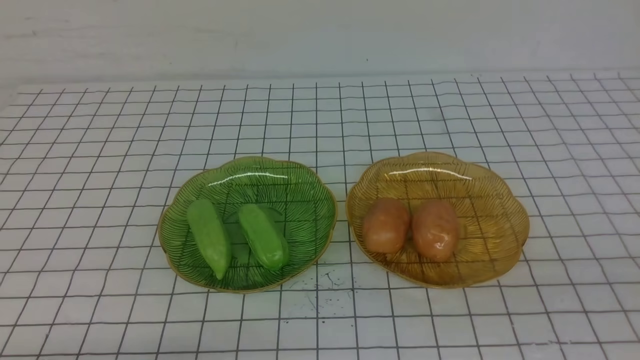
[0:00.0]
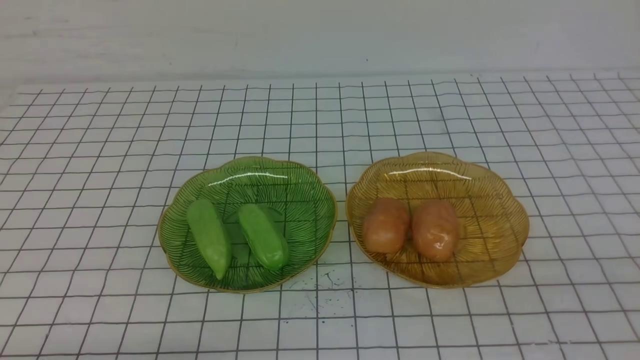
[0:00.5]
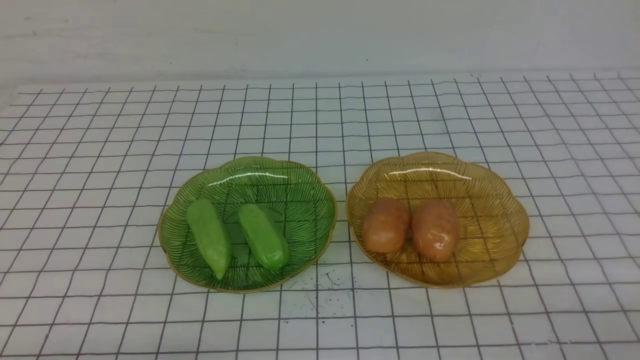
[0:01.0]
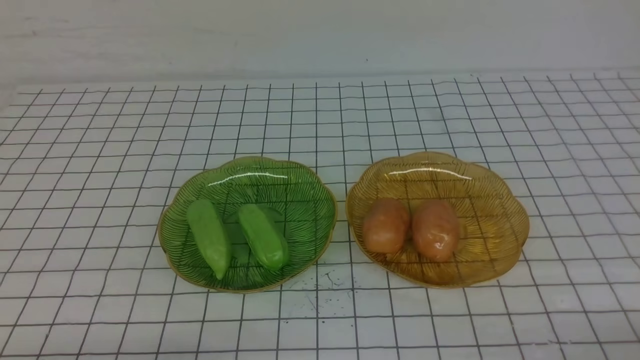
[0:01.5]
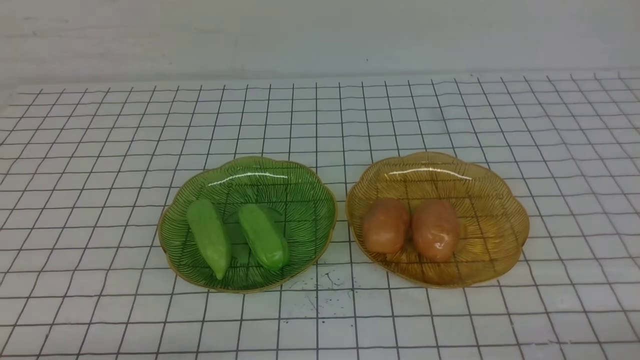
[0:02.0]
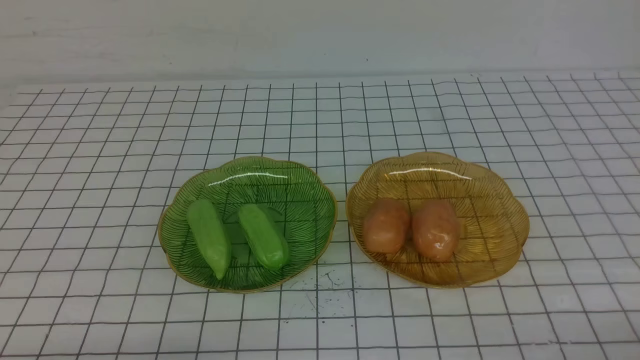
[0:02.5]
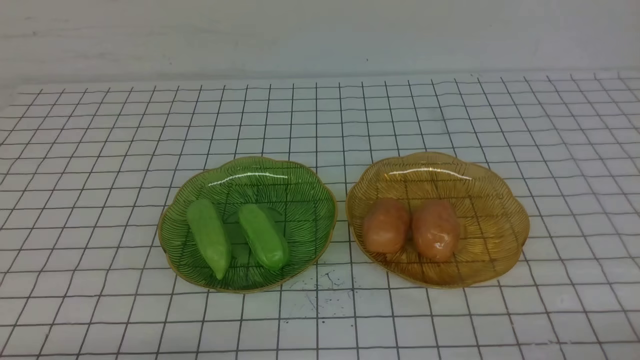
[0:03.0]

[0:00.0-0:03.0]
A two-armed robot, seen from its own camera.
0:01.5 to 0:03.0: The two grippers keep their place.

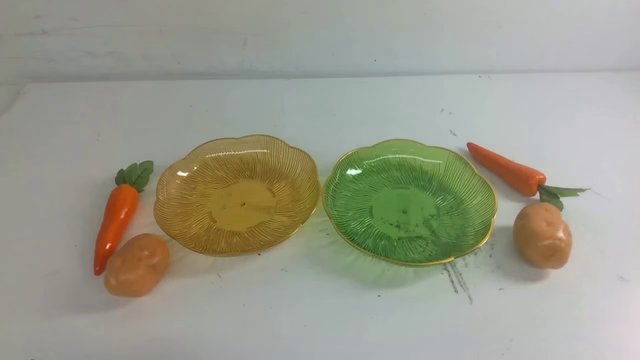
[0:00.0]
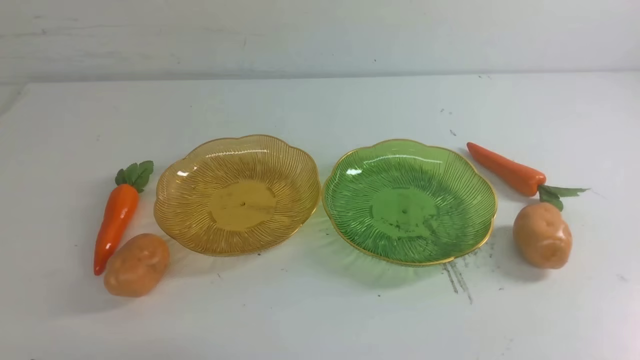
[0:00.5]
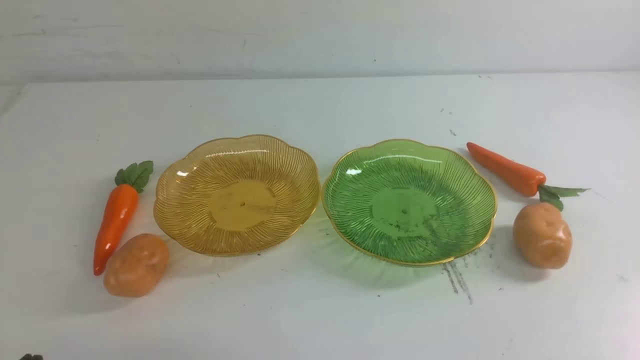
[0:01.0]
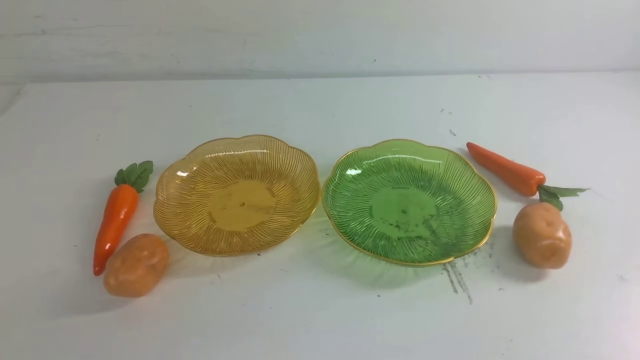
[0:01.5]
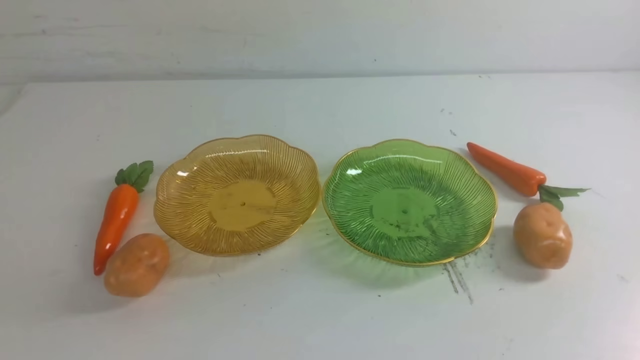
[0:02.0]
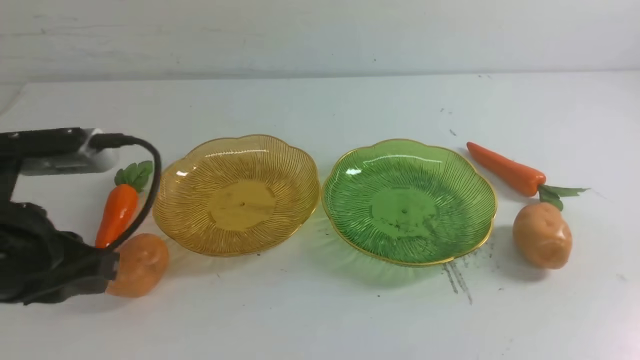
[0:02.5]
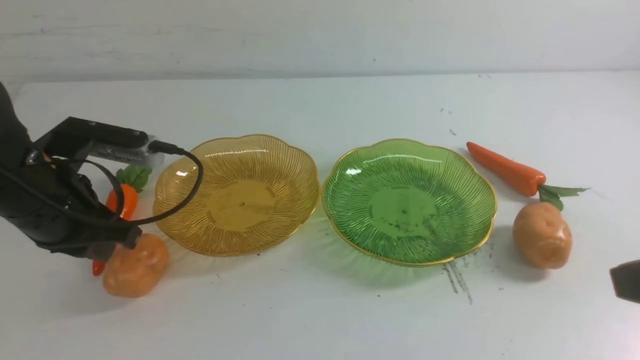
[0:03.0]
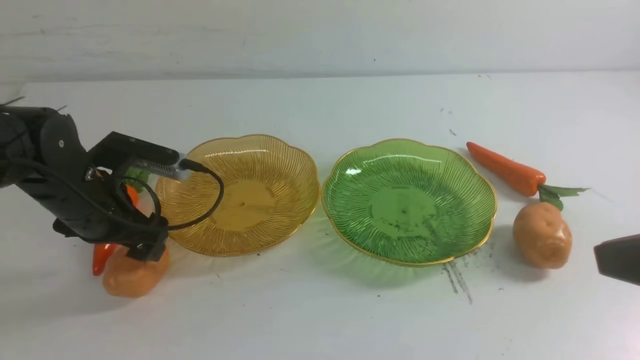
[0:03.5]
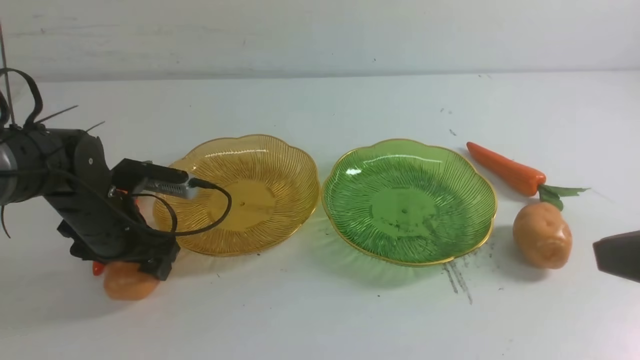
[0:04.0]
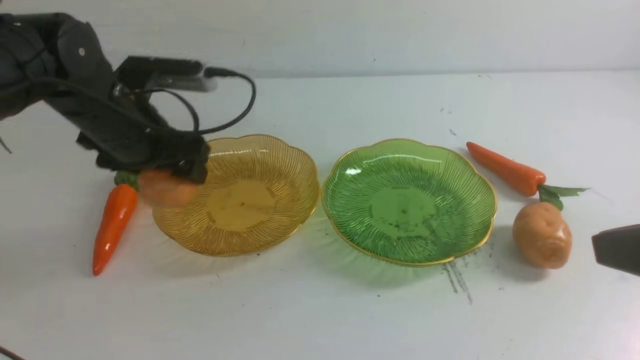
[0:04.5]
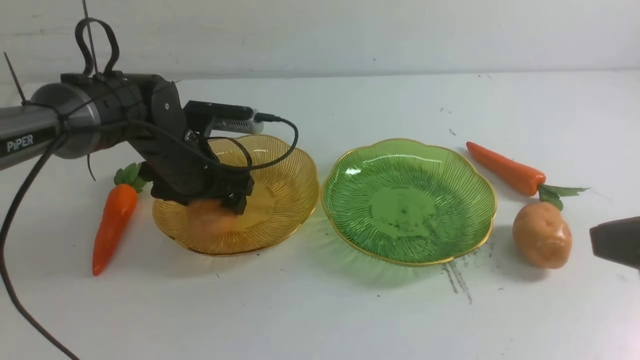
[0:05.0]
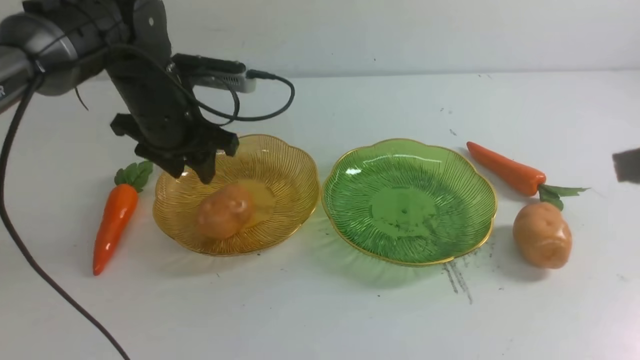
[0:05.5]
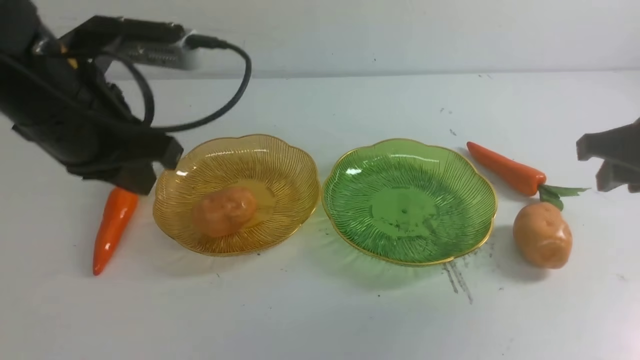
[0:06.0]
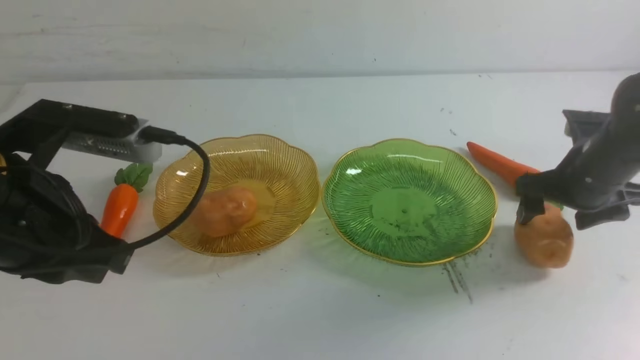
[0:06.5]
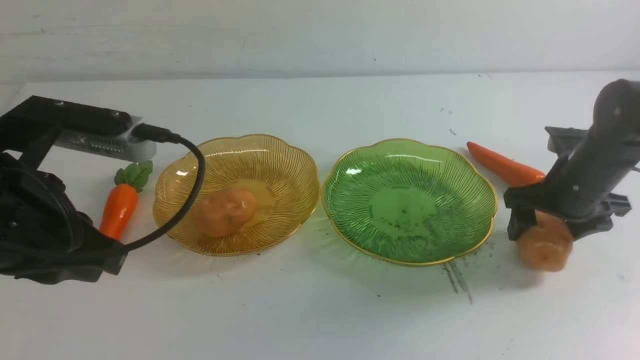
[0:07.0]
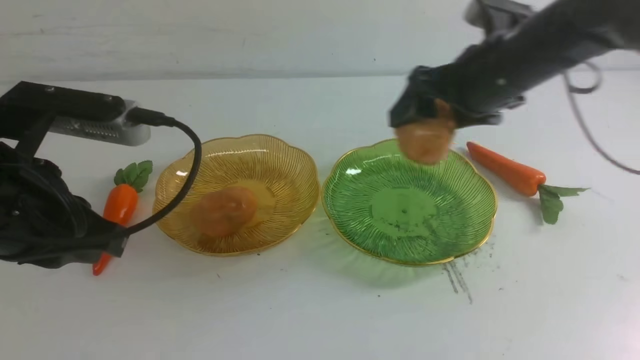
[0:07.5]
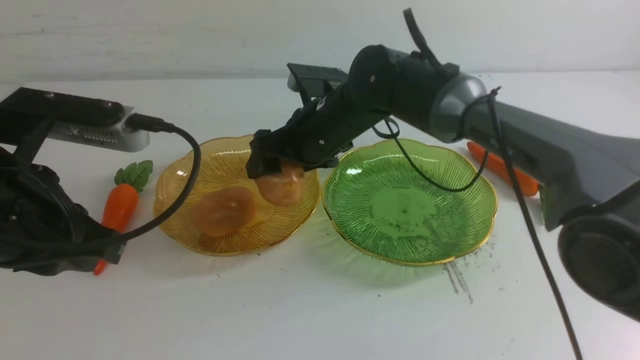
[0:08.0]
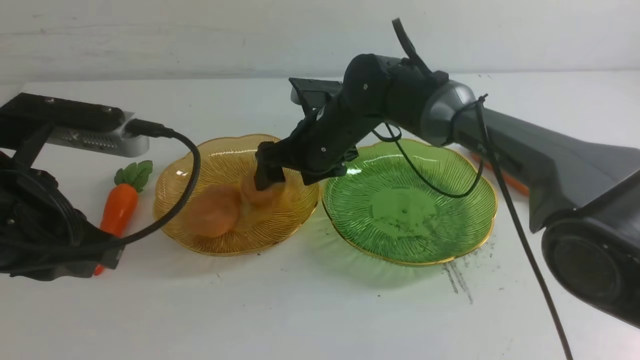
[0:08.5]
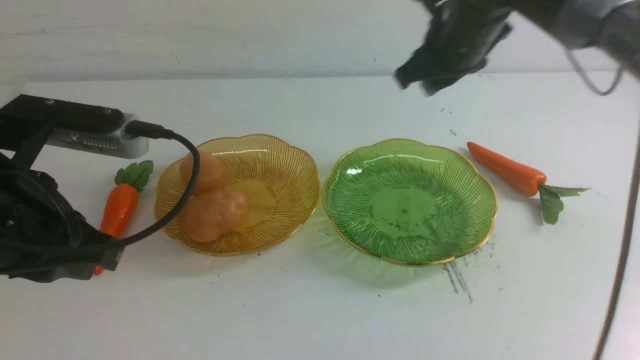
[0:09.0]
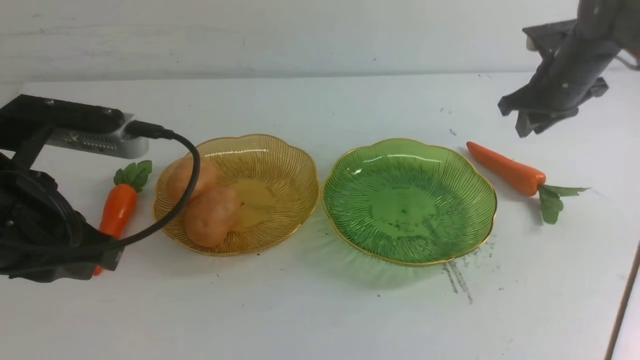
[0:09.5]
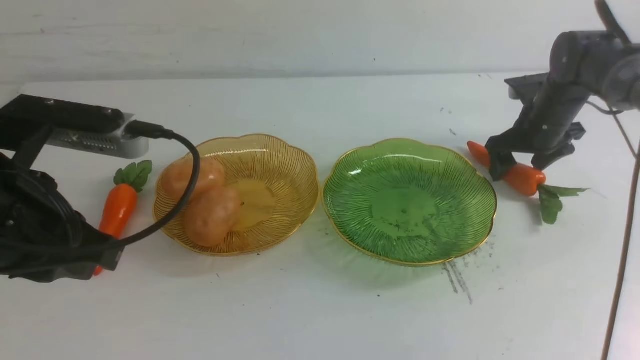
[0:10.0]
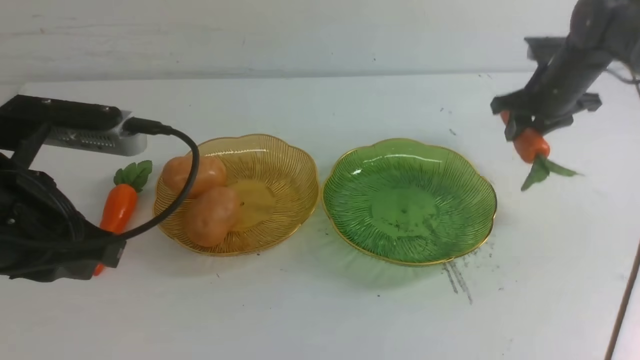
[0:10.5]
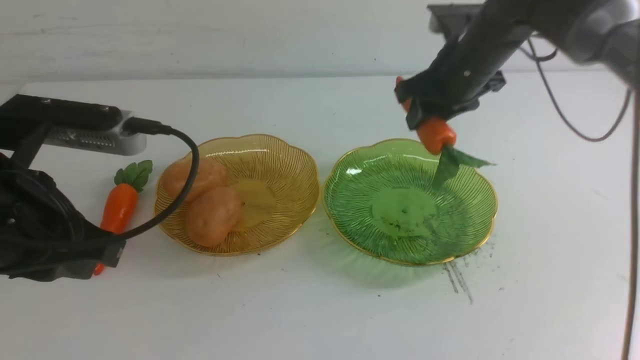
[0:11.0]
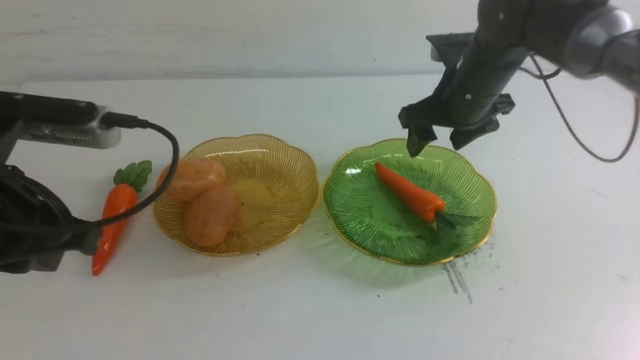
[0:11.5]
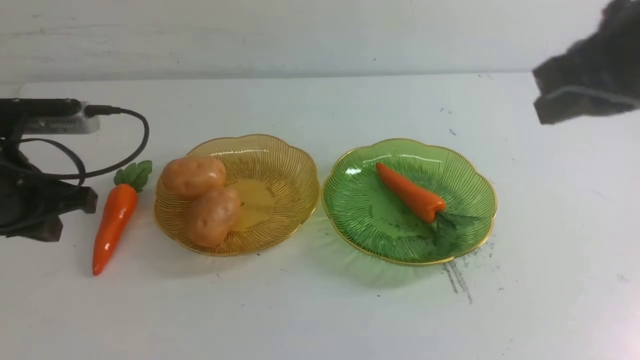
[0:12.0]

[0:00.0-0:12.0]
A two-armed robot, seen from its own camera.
Step, 0:00.0 to 0:05.0: Grab a potato with your left arm and put it on the left plate.
Step, 0:05.5 to 0:08.5: Grab a potato with your right arm and put it on the left plate.
Step, 0:09.5 to 0:11.5: use the right arm to grab a carrot and put it into the right plate.
0:02.0 to 0:04.0: The right gripper goes approximately 15 cm upward, forward and to the left. Meanwhile the left gripper is displaced forward and downward by about 30 cm, and opens up.
0:04.0 to 0:06.0: The left gripper swings up and down, approximately 15 cm each way, with 2 reversals, and closes; the right gripper shifts approximately 20 cm forward, and opens its fingers.
0:06.0 to 0:08.0: The right gripper is displaced to the left and forward by about 30 cm, and opens up, while the left gripper goes some 5 cm backward.
0:08.0 to 0:10.0: The right gripper moves to the right, about 30 cm, and closes, then opens again.
0:10.0 to 0:12.0: The right gripper goes some 35 cm backward and upward, and closes up. Meanwhile the left gripper shifts some 15 cm forward, to the left and downward.

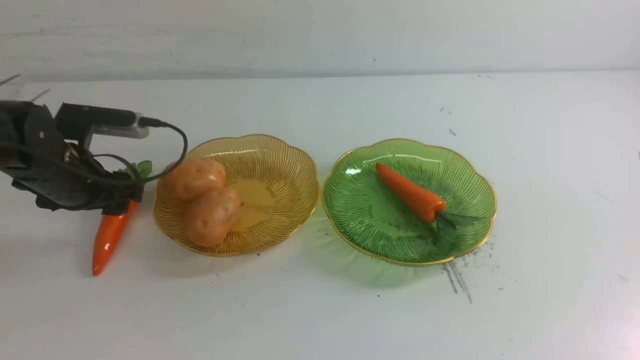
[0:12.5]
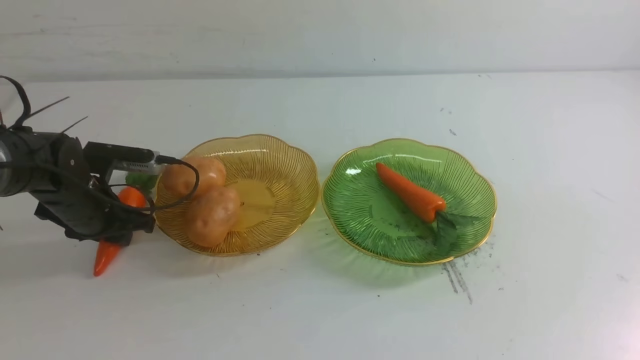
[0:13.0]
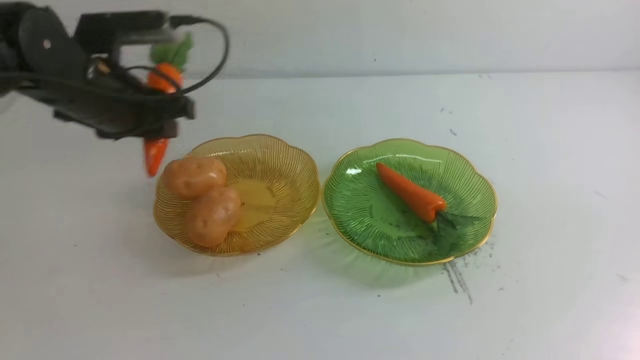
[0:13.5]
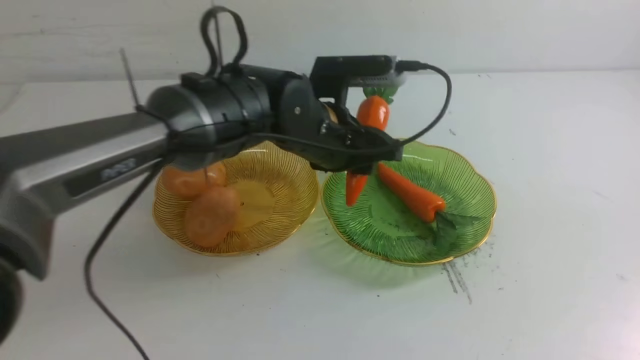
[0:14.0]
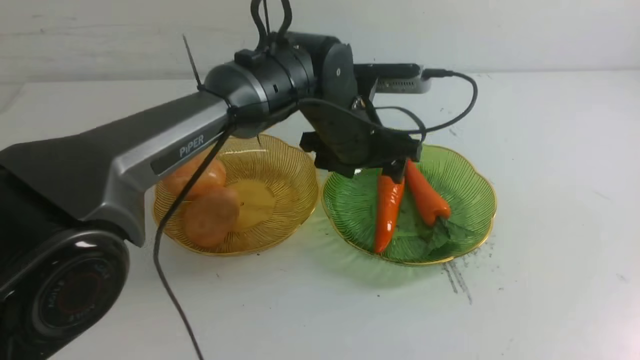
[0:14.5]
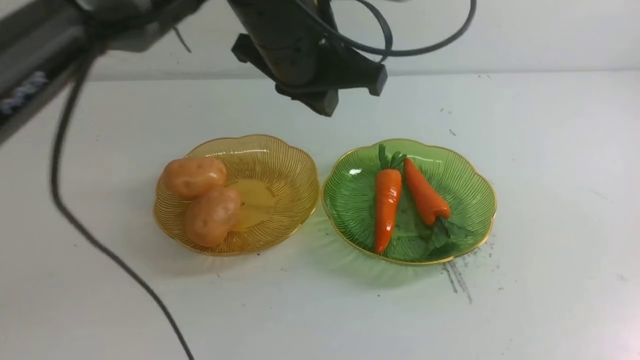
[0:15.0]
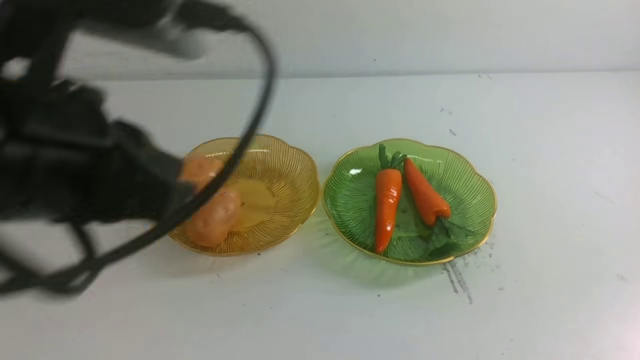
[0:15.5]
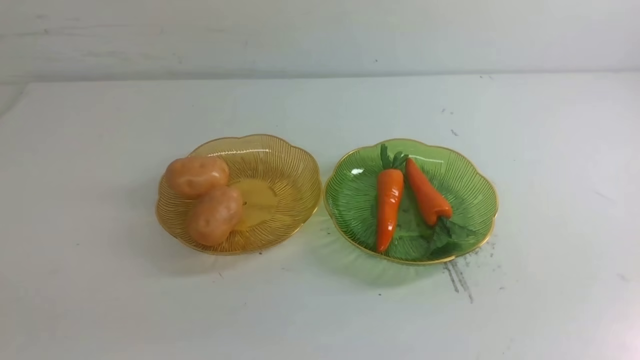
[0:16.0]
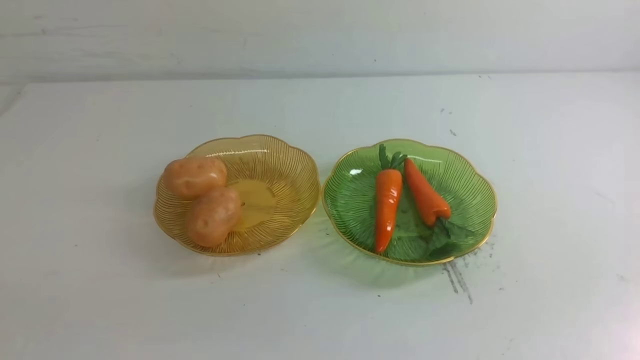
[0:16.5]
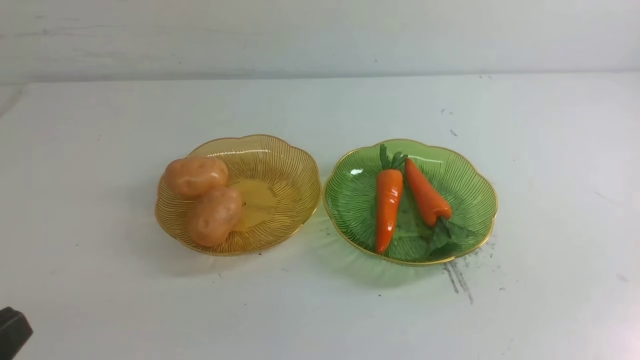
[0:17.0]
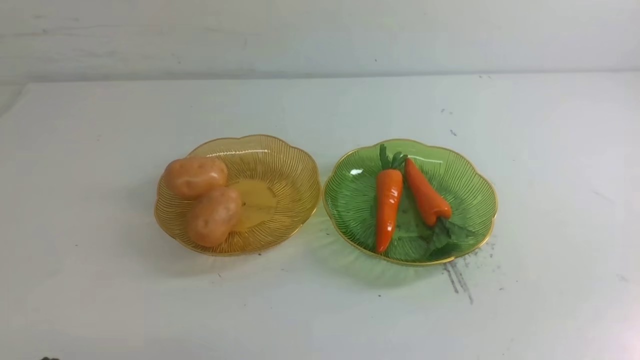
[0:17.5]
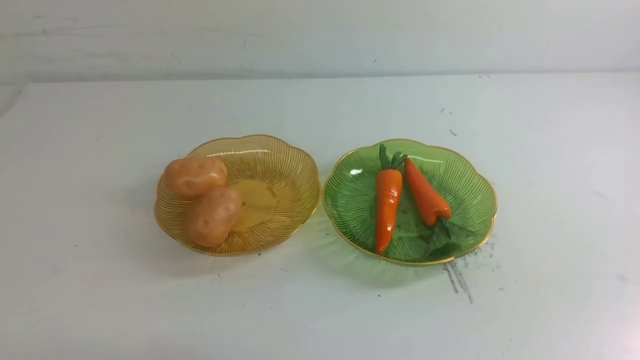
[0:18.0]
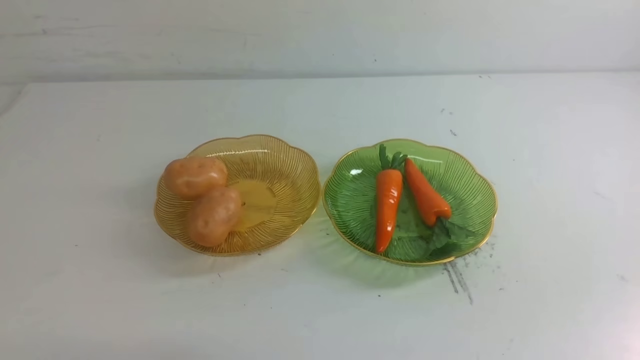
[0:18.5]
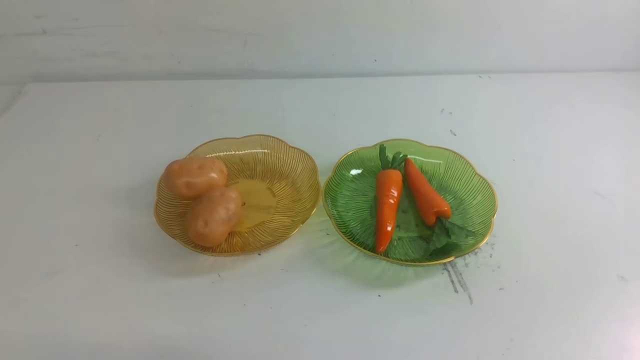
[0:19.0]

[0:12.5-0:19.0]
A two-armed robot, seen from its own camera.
Step, 0:12.5 to 0:14.5: use the left arm to grab a carrot and put it into the right plate.
0:12.5 to 0:14.5: The left gripper goes about 30 cm to the right.
0:14.5 to 0:17.0: The right gripper travels backward, downward and to the right by approximately 15 cm; the left gripper shifts approximately 40 cm backward and to the left, and closes.
